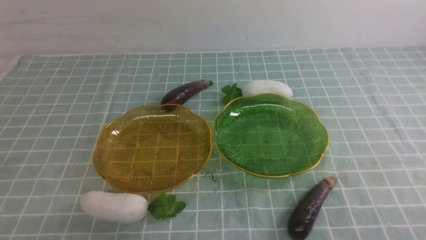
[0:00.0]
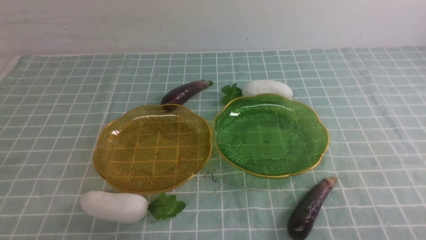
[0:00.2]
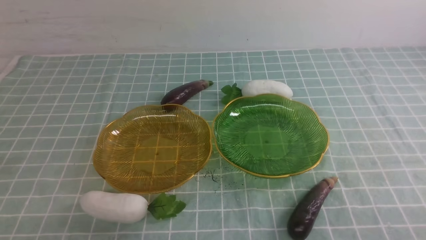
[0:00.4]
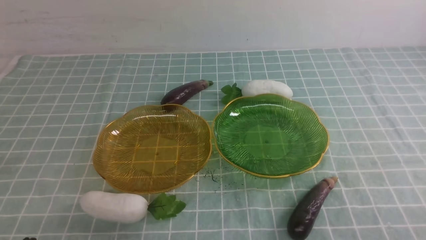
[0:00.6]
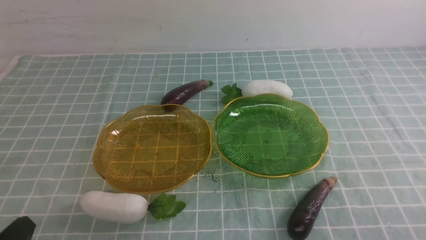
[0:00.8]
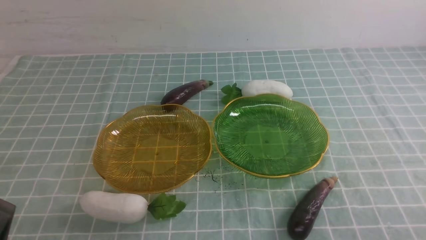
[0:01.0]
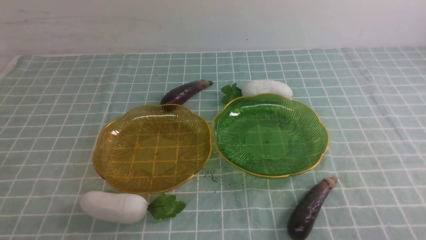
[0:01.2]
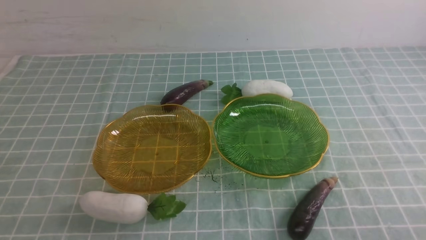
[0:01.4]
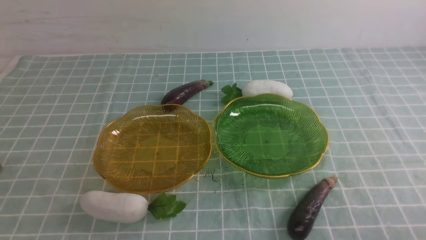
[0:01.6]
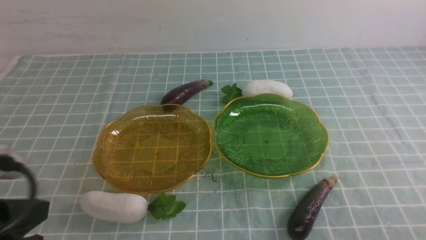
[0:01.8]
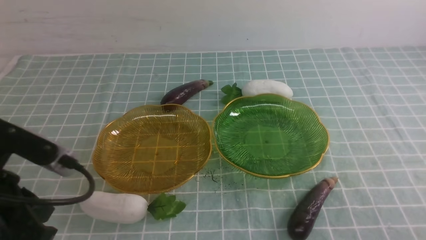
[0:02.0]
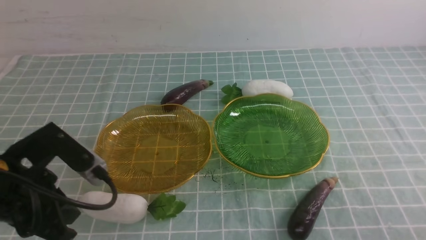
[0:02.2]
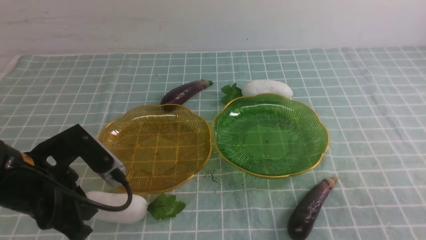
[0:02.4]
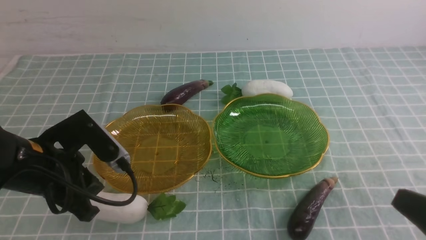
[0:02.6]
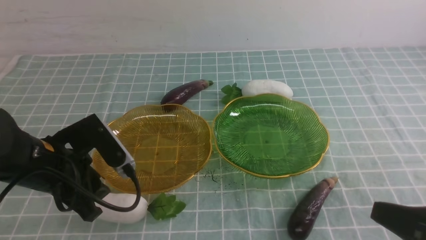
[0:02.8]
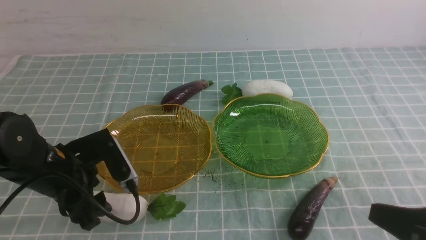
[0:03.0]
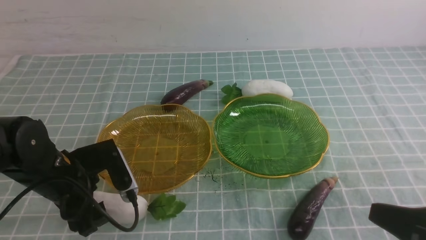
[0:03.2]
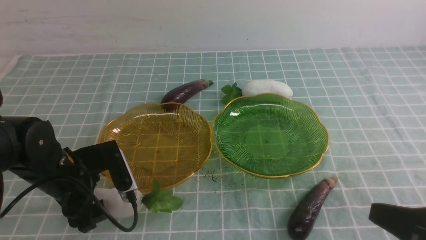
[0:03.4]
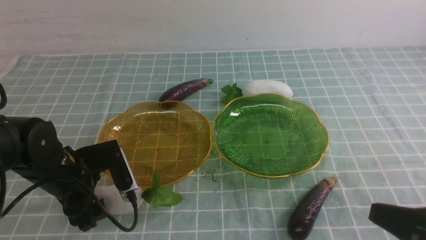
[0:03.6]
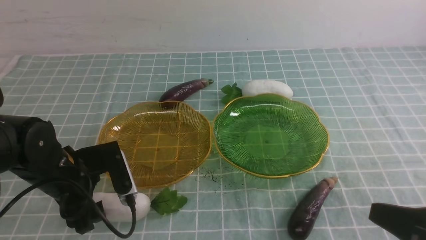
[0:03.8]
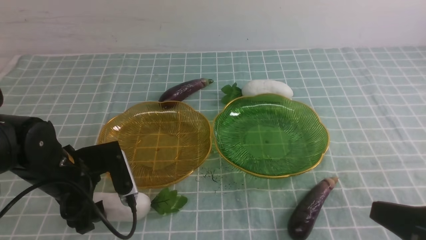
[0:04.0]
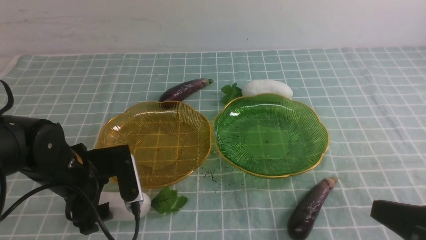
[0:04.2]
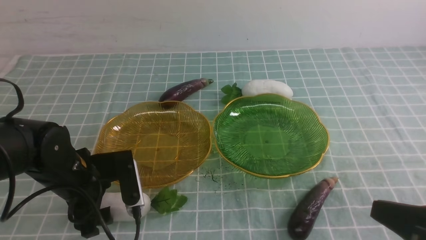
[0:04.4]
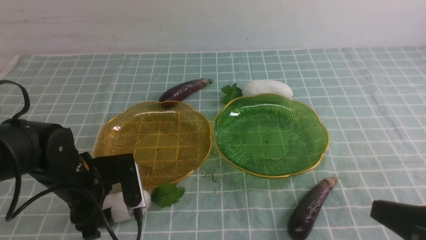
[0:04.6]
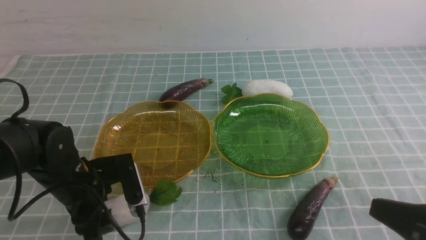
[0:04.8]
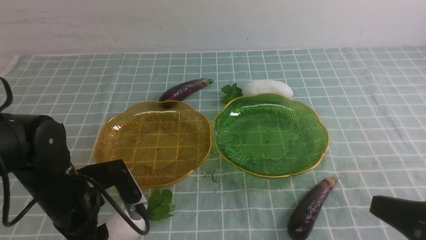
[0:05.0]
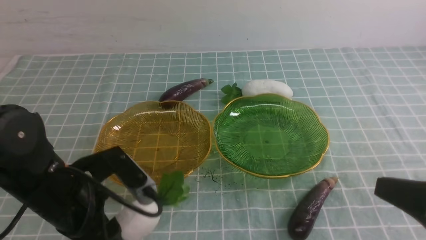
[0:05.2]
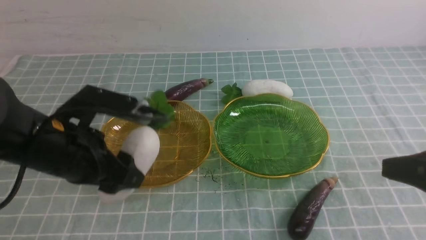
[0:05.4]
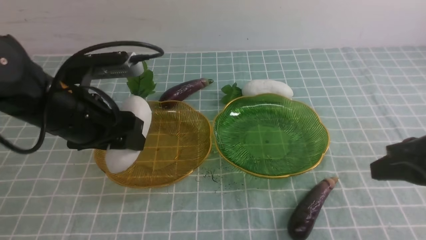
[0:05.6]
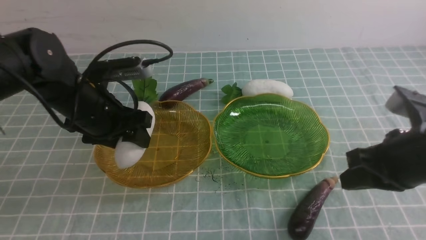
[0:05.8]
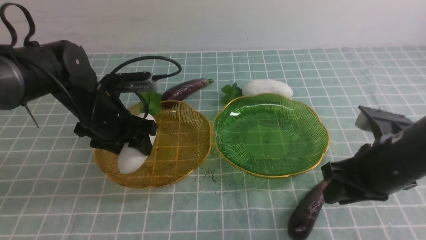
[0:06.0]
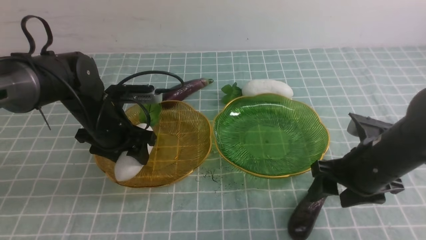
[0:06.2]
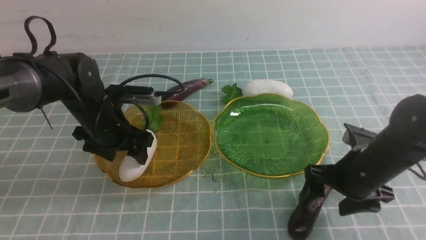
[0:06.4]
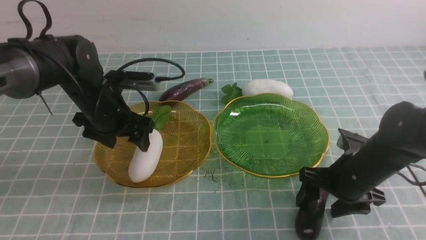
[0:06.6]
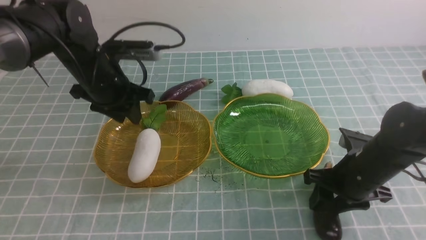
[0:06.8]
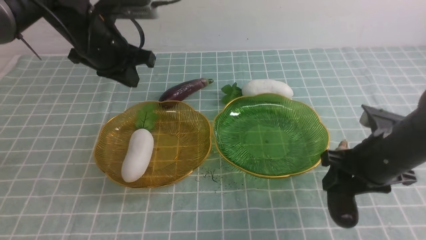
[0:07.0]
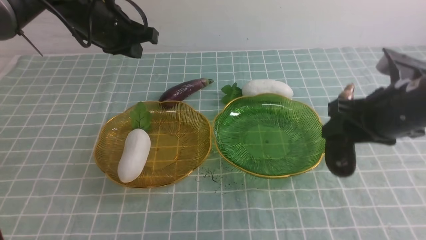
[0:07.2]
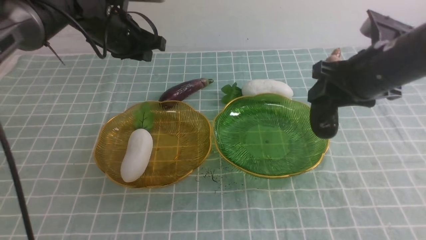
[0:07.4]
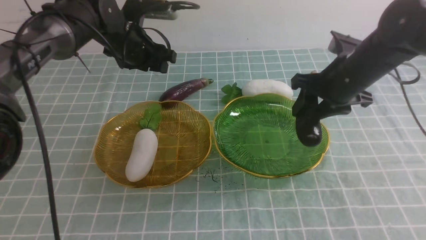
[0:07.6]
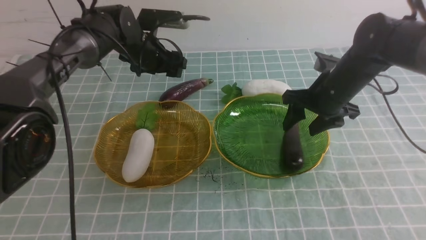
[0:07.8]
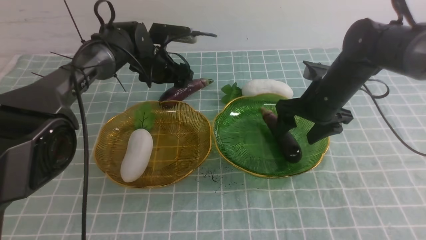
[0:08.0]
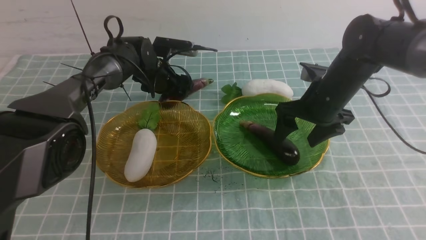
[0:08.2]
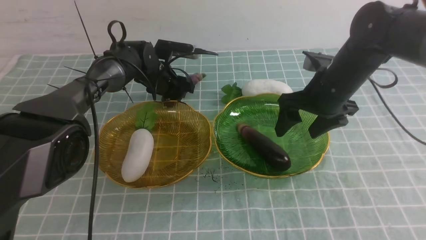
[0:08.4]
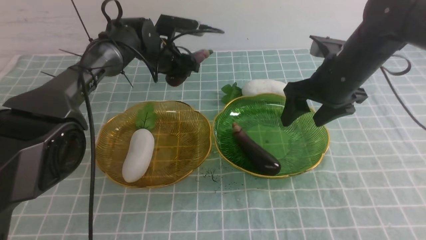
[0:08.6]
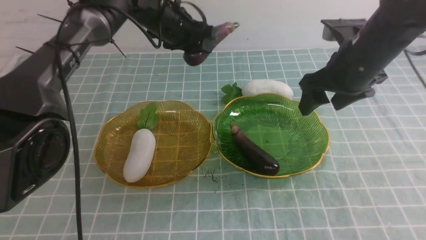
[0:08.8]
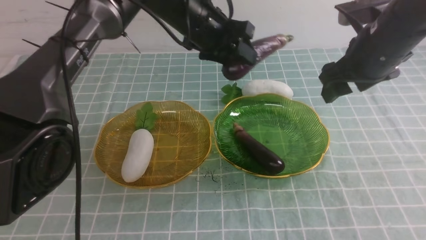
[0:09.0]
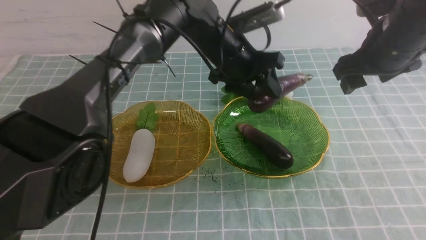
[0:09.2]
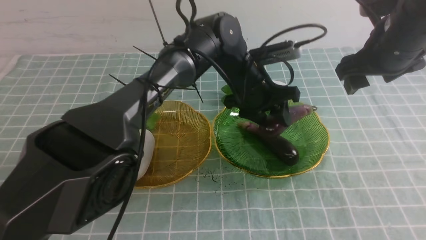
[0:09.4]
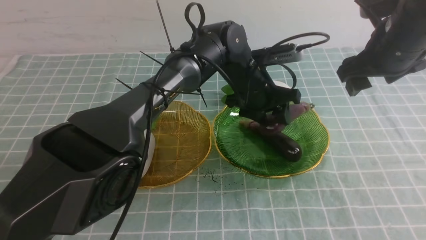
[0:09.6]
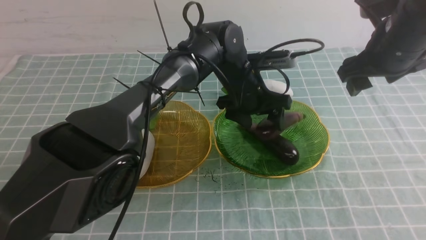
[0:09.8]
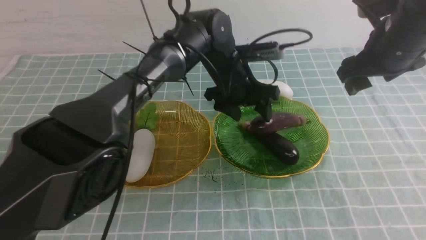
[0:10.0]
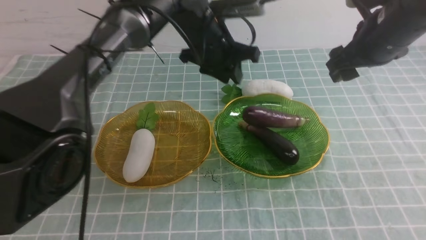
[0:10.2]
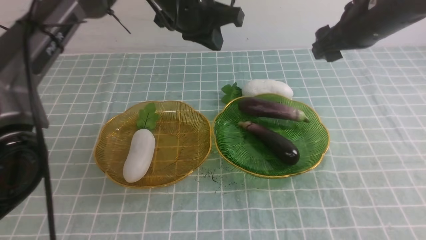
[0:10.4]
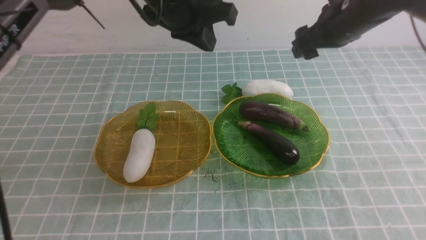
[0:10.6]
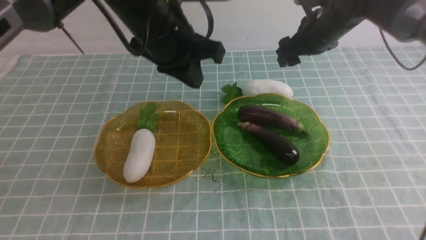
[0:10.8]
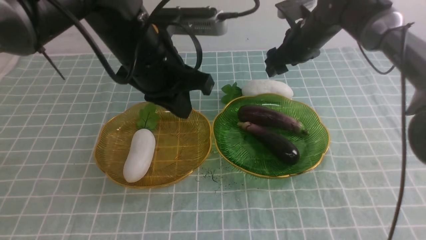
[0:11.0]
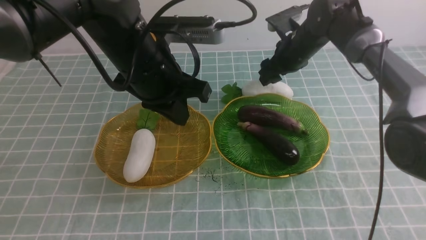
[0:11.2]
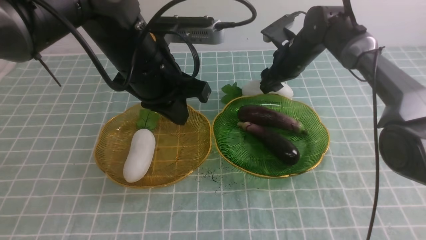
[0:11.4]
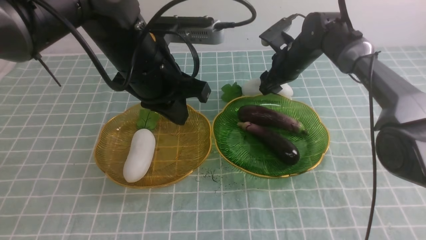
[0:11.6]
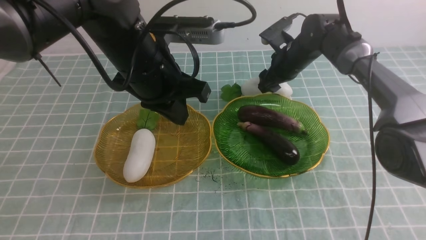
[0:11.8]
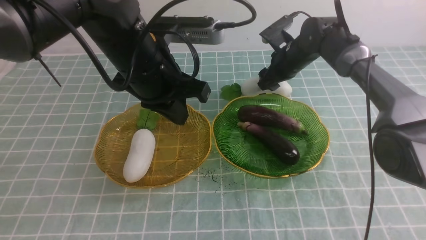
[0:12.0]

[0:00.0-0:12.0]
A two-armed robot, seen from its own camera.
Step, 0.0 to 6.4 s: use the left arm to grab a radish and put it into the left plate.
Step, 6.6 to 8.0 s: use the right arm to grab an eggplant and put it into the right plate.
Step, 8.4 to 10.0 s: use the left arm to grab an eggplant and put it into the right plate.
1.6 to 3.0 s: The right gripper goes some 5 cm upward. The left gripper goes about 20 cm forward and downward, and opens its fingers.
3.0 to 4.4 s: There are only small adjustments of the grippers.
4.4 to 6.0 s: The right gripper moves forward, some 15 cm, and opens; the left gripper is displaced forward by roughly 10 cm.
6.0 to 7.6 s: Both grippers travel together forward, roughly 15 cm. The left gripper closes, then opens again.
7.6 to 9.0 s: The left gripper travels to the right by about 15 cm, and moves roughly 10 cm downward and comes back; the right gripper shifts roughly 5 cm upward.
9.0 to 10.4 s: The left gripper moves upward, roughly 5 cm, and closes its fingers.
10.4 to 12.0 s: The right gripper goes some 20 cm downward and forward. Meanwhile the left gripper heads backward, covering about 10 cm.

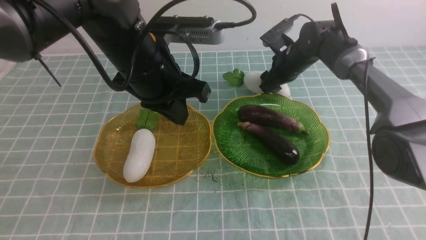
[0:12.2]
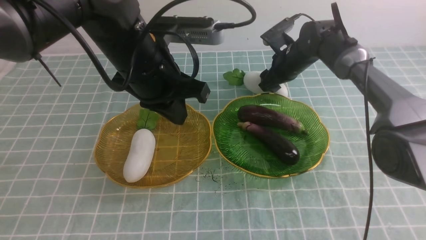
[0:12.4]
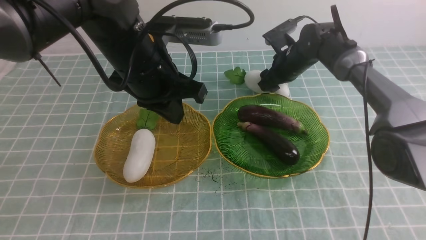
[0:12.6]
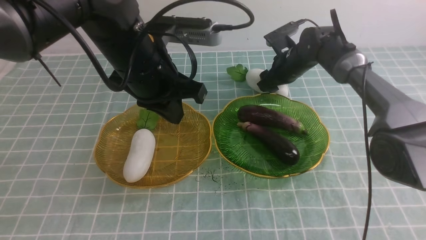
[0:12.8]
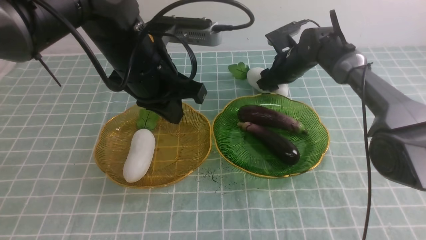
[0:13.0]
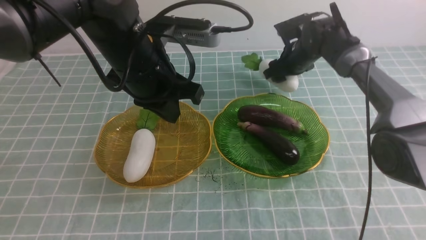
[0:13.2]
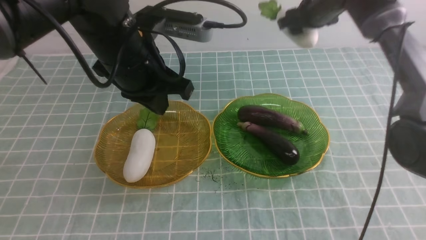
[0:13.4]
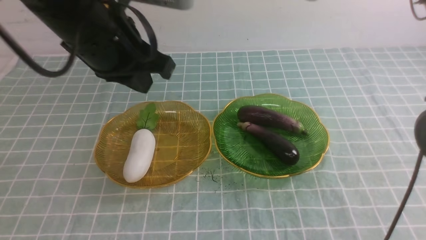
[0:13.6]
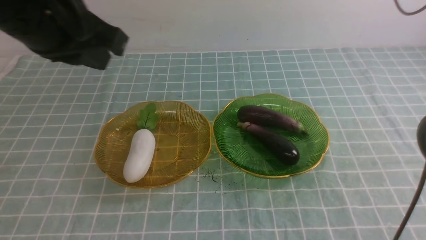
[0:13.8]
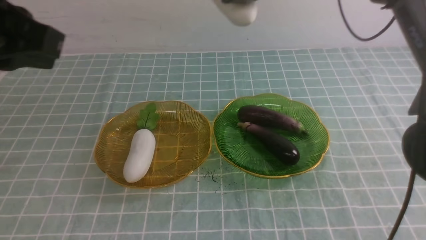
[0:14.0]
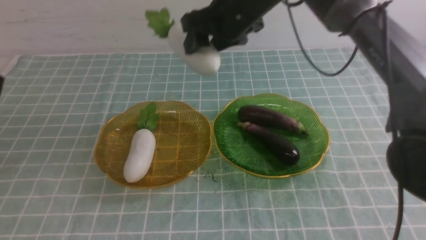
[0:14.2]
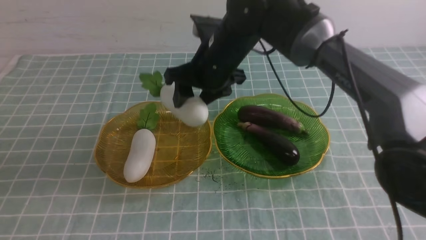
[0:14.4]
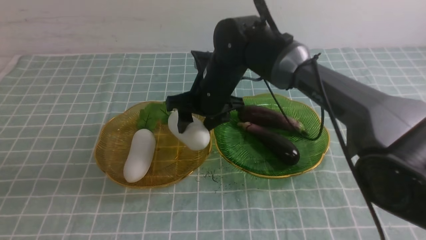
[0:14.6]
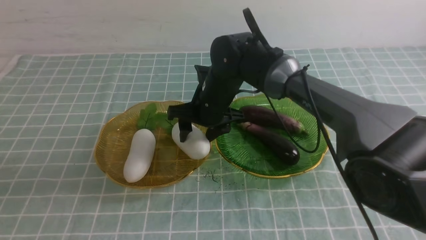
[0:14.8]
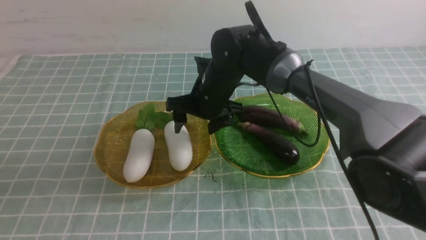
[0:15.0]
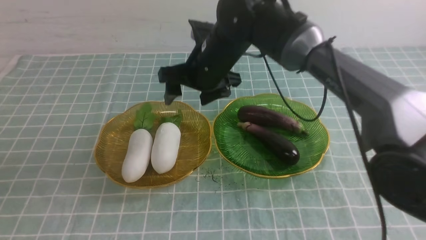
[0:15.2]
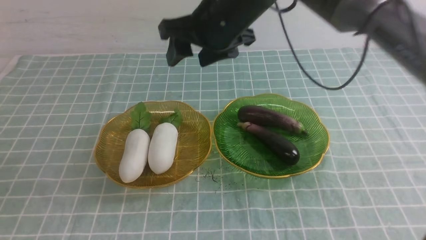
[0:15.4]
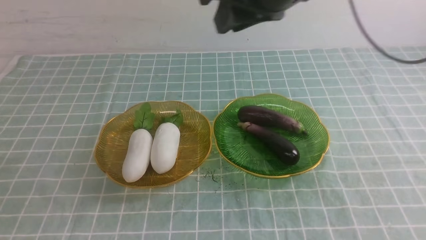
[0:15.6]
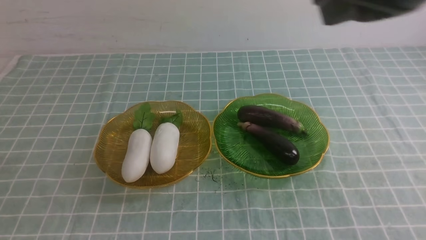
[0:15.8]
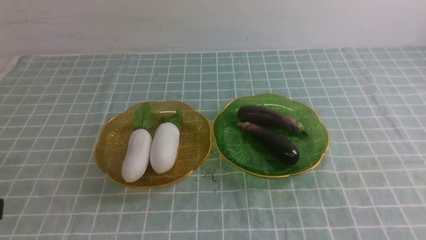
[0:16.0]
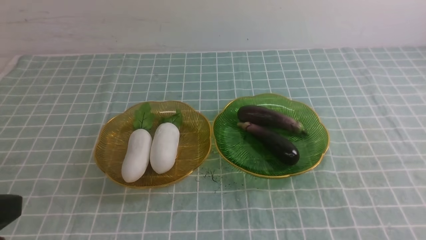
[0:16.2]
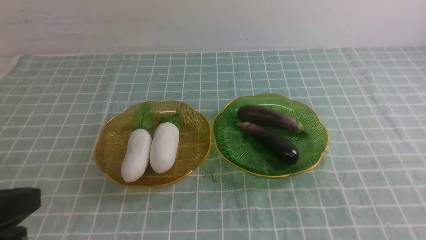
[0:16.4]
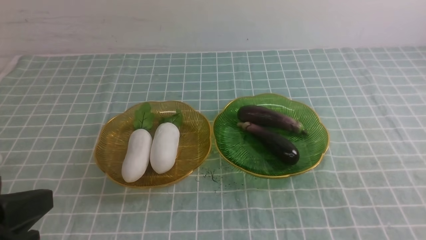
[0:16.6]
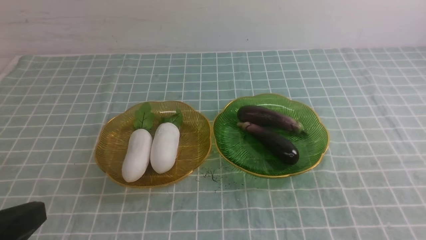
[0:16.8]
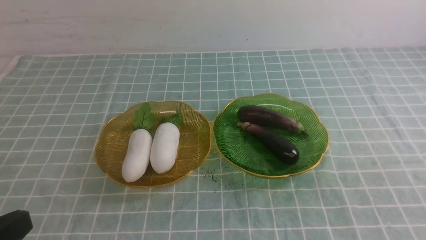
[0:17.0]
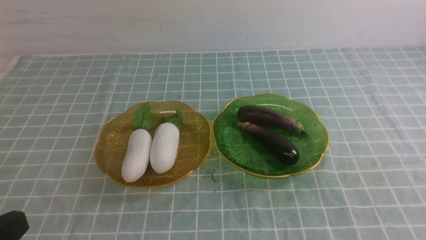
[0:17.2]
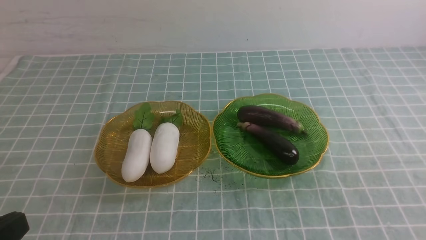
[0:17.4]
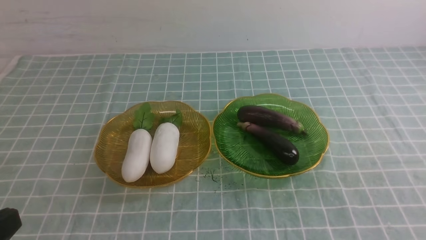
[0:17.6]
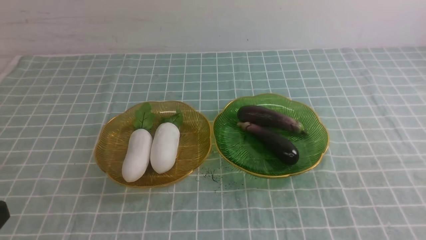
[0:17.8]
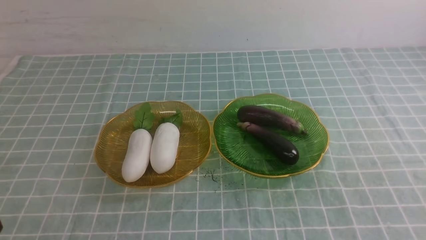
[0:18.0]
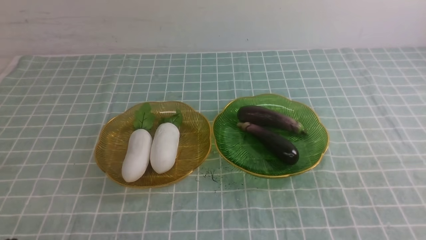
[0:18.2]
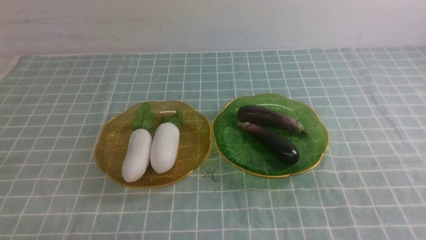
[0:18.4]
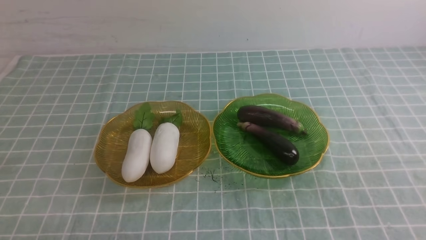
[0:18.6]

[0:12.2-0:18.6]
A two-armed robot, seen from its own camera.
Step, 12.2 to 14.8 s: use the right arm to grab a radish and put it into the left plate.
12.2 to 13.8 s: The left gripper travels upward, backward and to the left by roughly 15 cm, while the right gripper is displaced upward by roughly 25 cm.
13.8 to 15.4 s: The two grippers go about 15 cm backward and to the left. The right gripper moves approximately 20 cm downward and comes back.
15.4 to 17.0 s: The right gripper shifts about 40 cm backward and to the right, and closes its fingers. Meanwhile the left gripper moves downward, some 10 cm.
17.0 to 18.6 s: The left gripper travels downward by approximately 15 cm.
